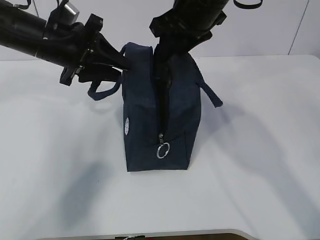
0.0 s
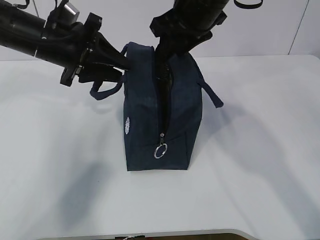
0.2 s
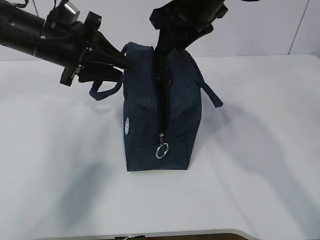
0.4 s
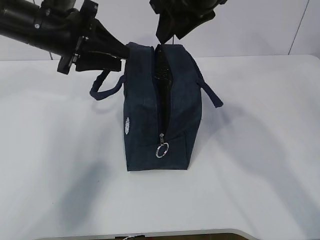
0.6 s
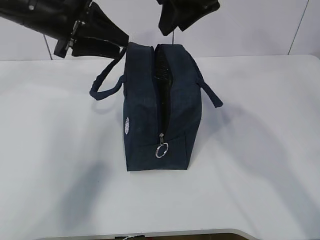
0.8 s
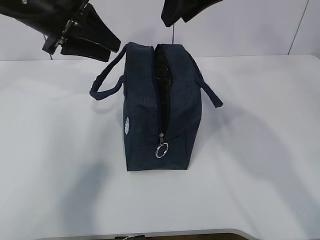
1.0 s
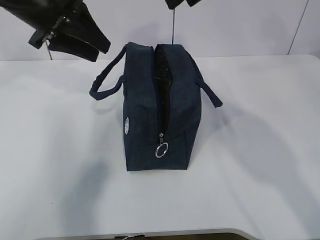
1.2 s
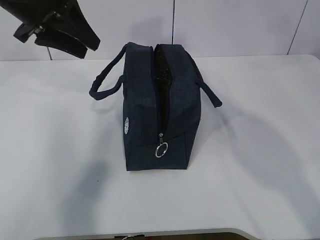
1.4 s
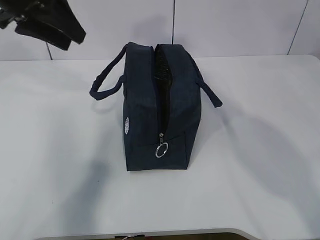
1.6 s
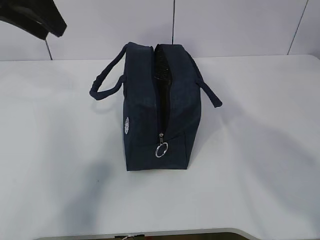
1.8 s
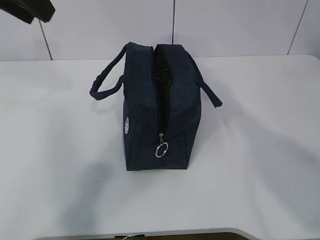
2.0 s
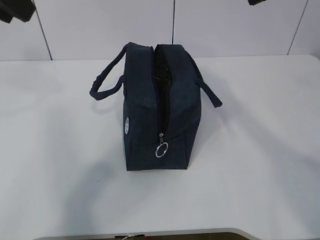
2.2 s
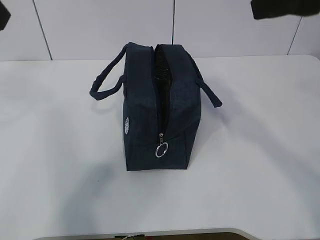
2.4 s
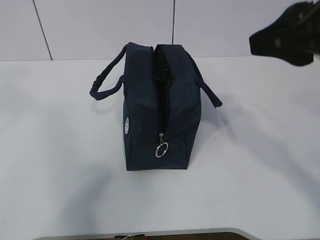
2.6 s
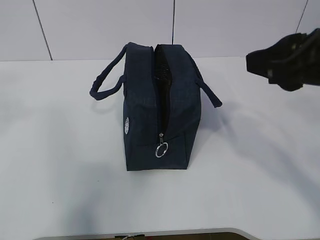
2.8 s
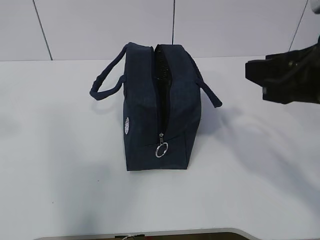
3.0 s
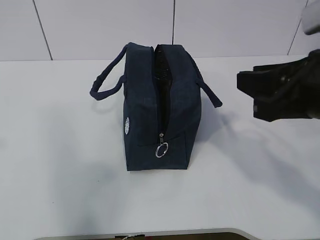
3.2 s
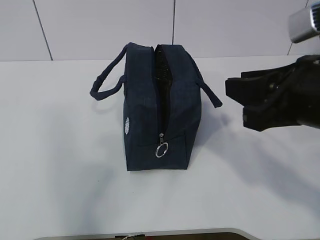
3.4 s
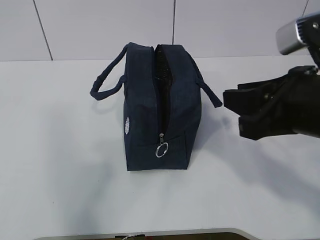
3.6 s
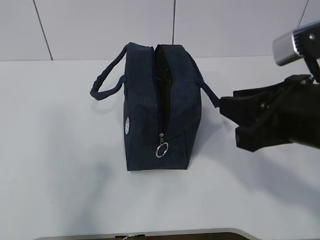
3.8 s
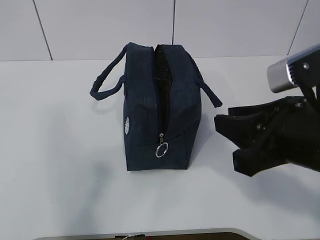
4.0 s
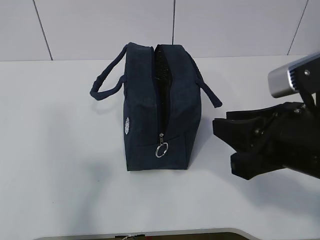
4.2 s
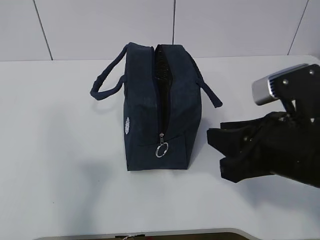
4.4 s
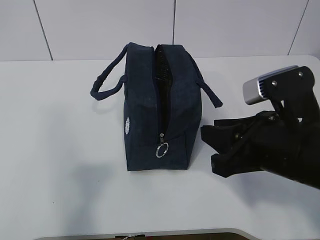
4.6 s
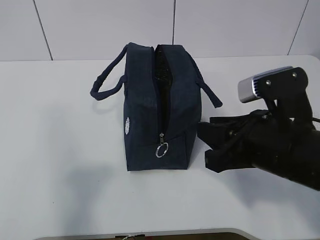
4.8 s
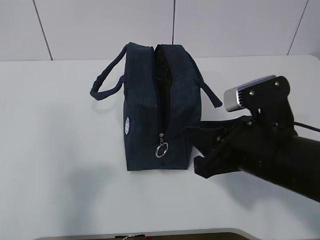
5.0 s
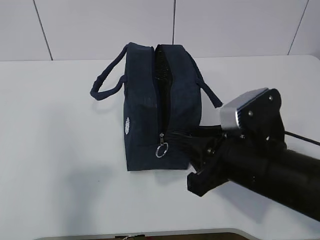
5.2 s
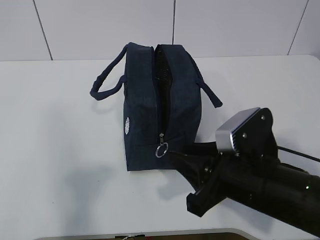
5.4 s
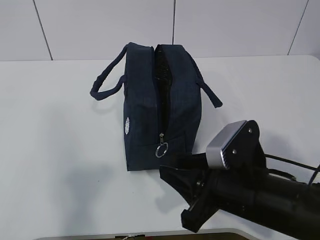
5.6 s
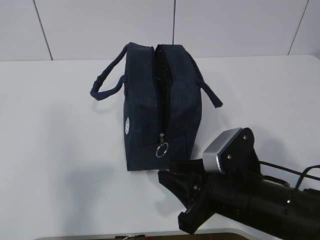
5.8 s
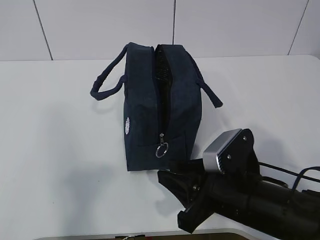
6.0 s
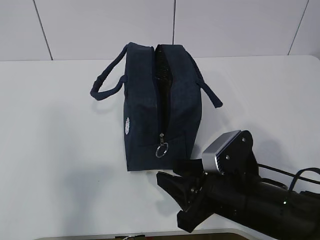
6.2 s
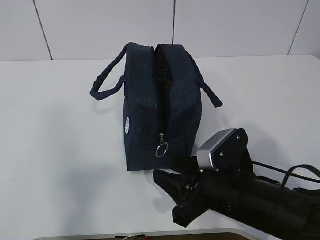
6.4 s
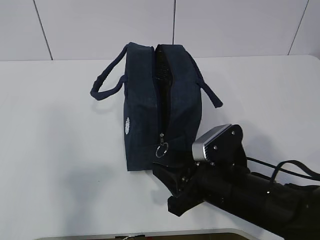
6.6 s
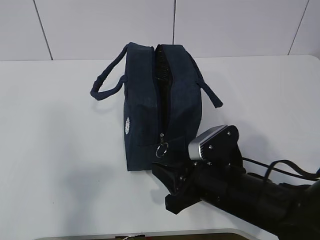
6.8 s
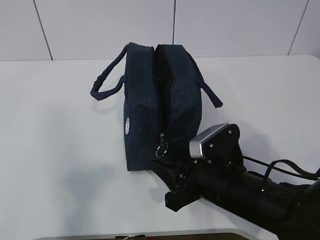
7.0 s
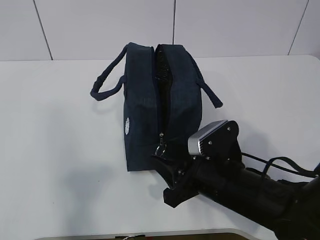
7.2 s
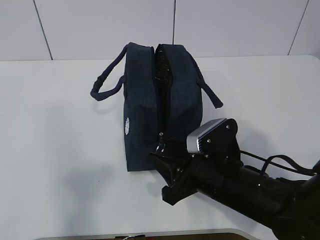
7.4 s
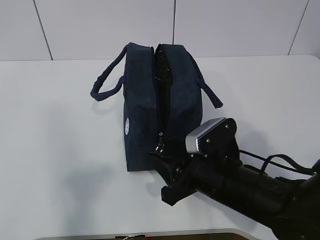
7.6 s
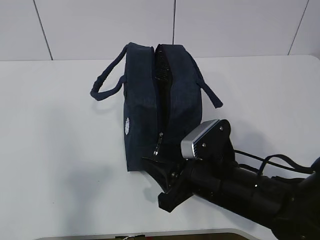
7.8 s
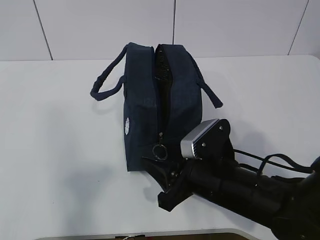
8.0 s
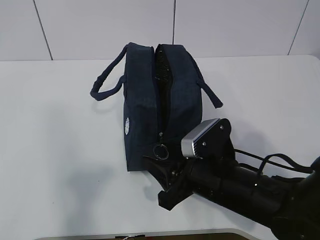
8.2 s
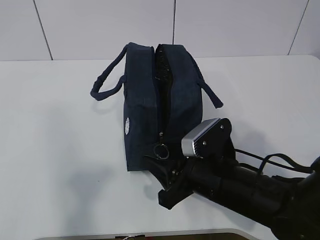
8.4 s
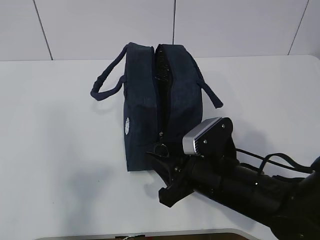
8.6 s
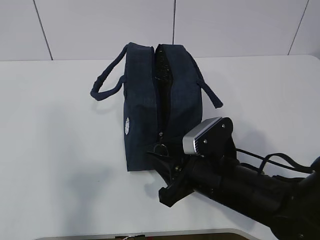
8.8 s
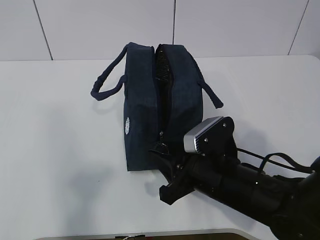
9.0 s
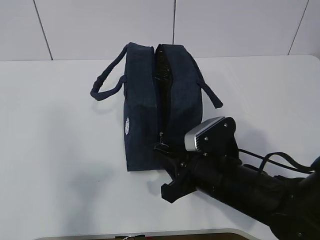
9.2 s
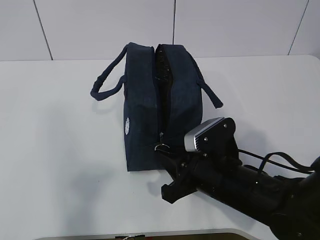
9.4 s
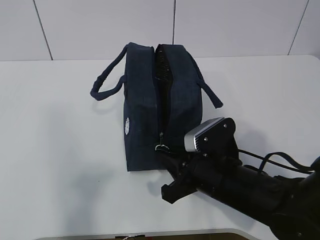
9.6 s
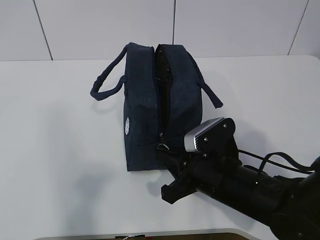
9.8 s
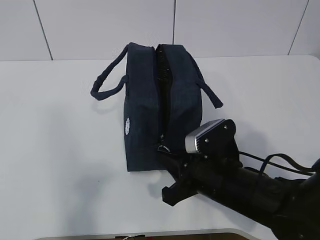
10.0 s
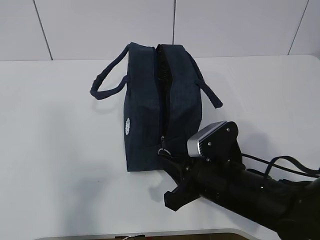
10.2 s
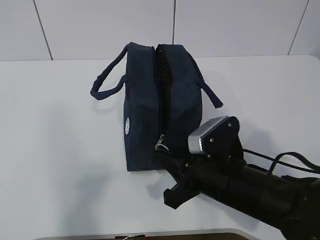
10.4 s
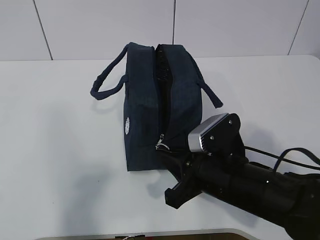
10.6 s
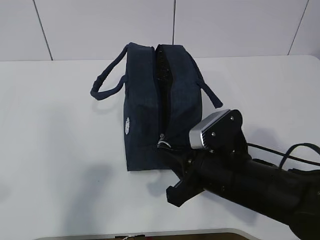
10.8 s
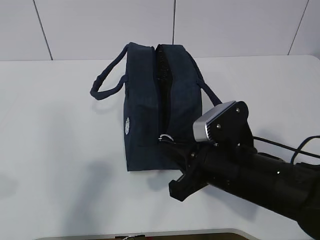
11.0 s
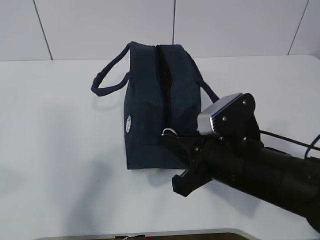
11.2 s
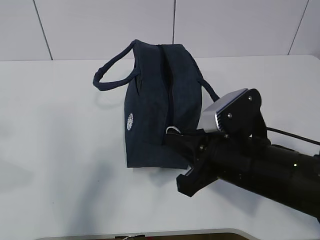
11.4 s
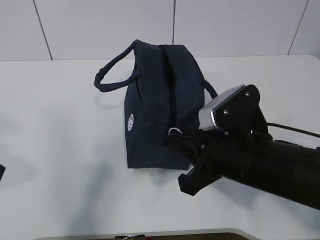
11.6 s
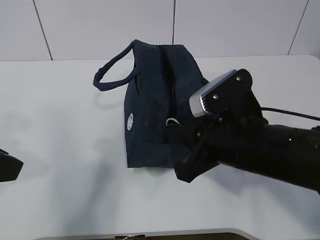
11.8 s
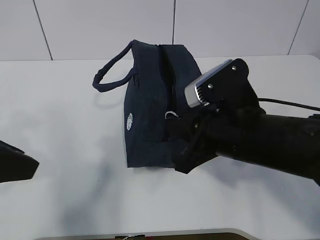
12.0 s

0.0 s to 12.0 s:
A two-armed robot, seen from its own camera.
Step, 0.0 to 7.8 s: Grab the lunch bag with your left hand.
0.0 to 1.6 s: The right gripper goes some 15 cm upward and backward; the left gripper goes roughly 10 cm upward.
1.6 to 3.0 s: The left gripper travels backward by some 20 cm, while the right gripper moves downward, backward and to the right, roughly 20 cm.
3.0 to 4.4 s: The left gripper goes some 10 cm backward. Meanwhile the right gripper heads downward, covering approximately 5 cm.
4.4 to 6.0 s: The right gripper heads downward, covering roughly 10 cm.
6.0 to 7.6 s: The grippers stay close to where they were, moving slightly.
7.6 to 9.0 s: Both grippers stay put.
9.0 to 10.4 s: The right gripper closes its fingers.
10.4 to 12.0 s: The right gripper moves upward, some 10 cm. Meanwhile the left gripper is displaced forward and downward by some 15 cm.

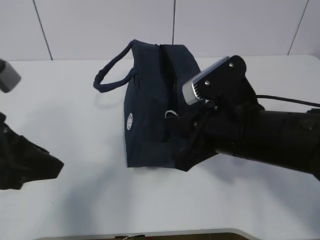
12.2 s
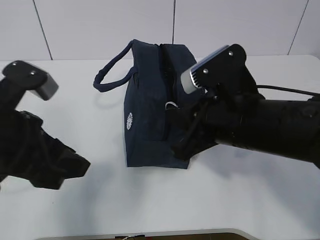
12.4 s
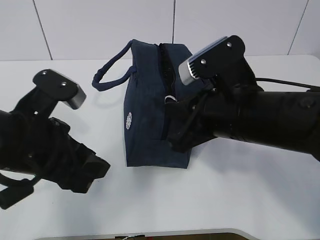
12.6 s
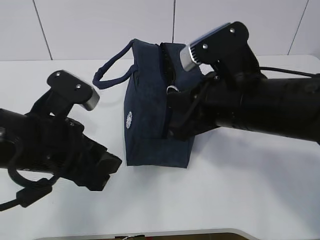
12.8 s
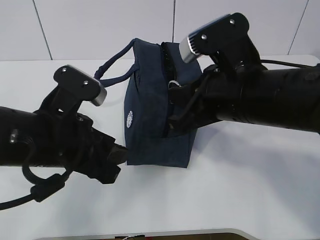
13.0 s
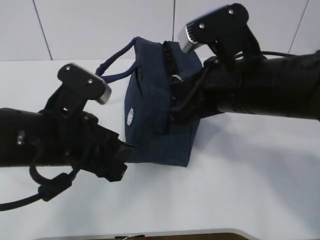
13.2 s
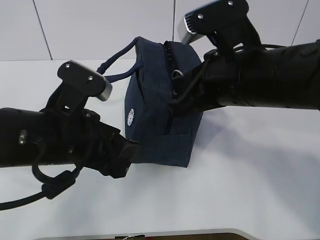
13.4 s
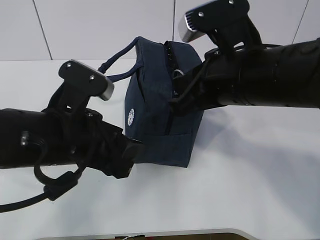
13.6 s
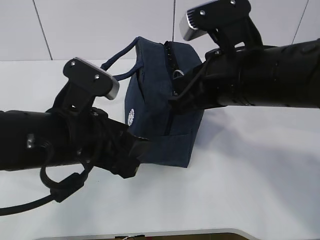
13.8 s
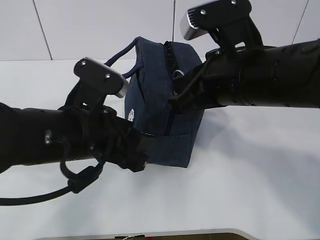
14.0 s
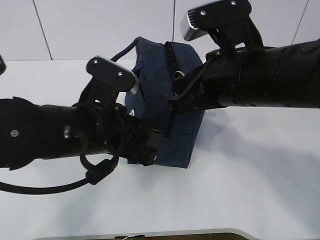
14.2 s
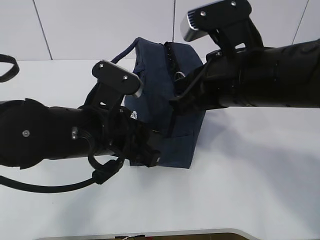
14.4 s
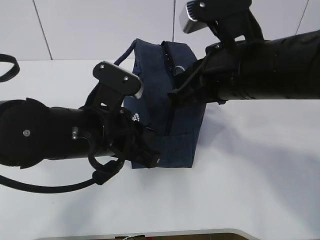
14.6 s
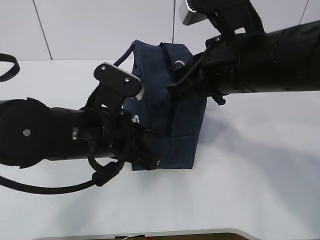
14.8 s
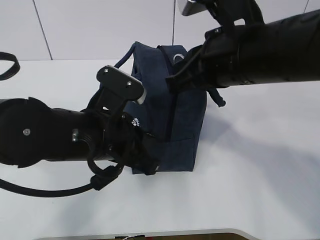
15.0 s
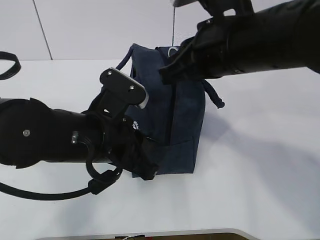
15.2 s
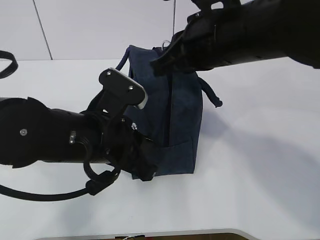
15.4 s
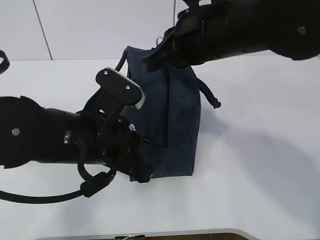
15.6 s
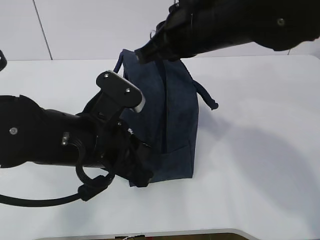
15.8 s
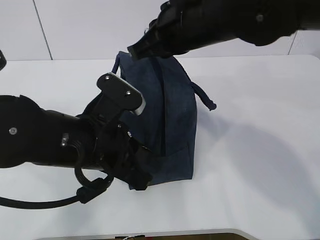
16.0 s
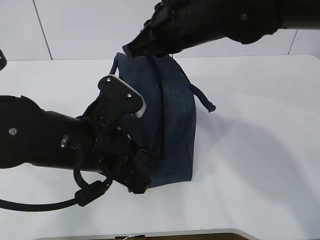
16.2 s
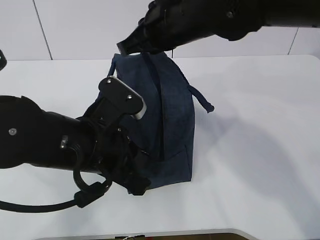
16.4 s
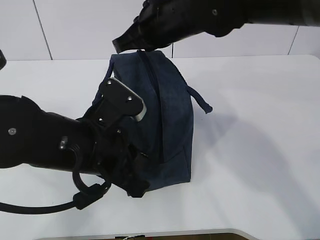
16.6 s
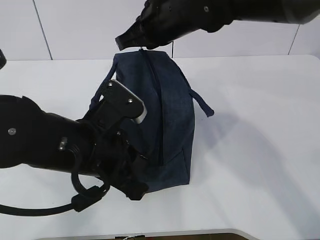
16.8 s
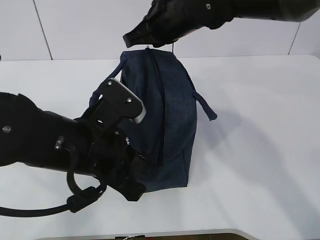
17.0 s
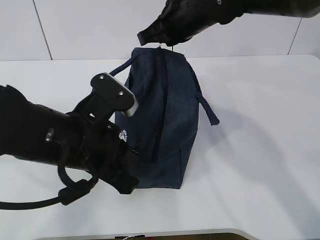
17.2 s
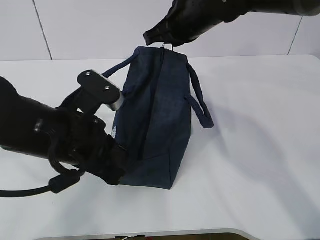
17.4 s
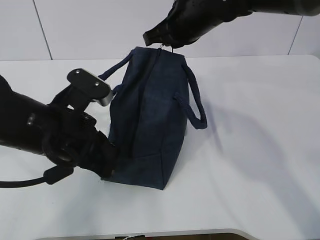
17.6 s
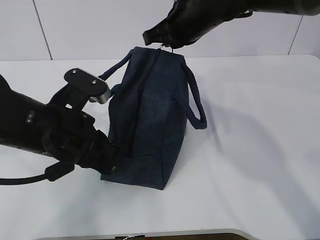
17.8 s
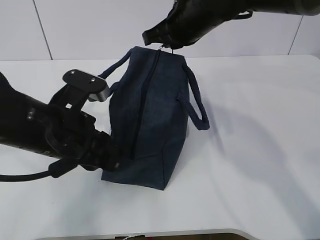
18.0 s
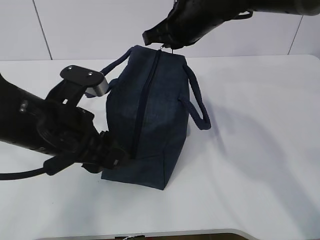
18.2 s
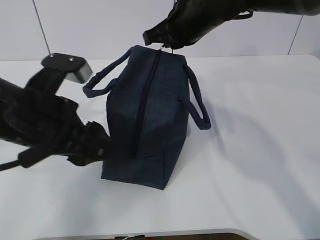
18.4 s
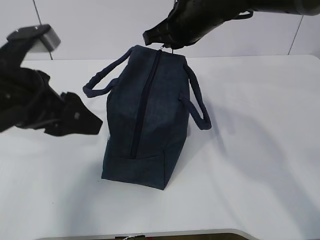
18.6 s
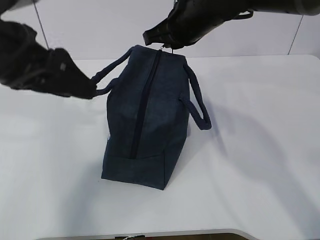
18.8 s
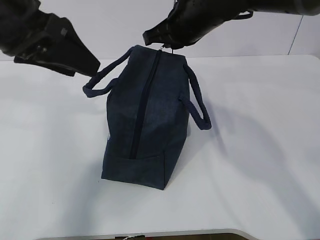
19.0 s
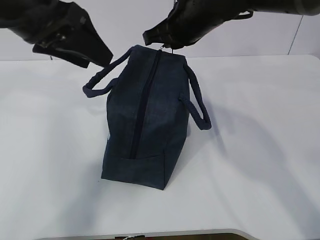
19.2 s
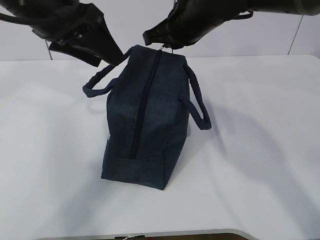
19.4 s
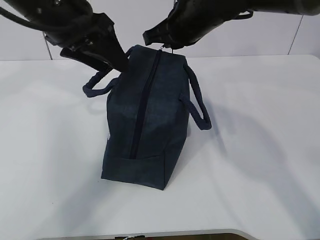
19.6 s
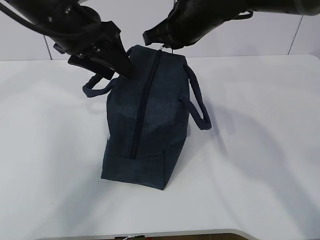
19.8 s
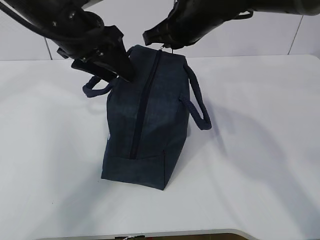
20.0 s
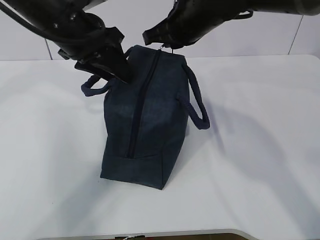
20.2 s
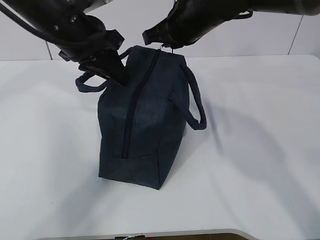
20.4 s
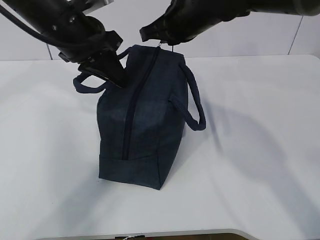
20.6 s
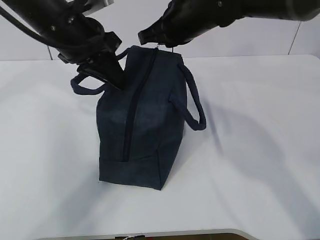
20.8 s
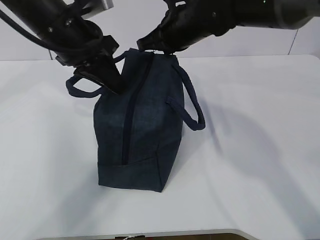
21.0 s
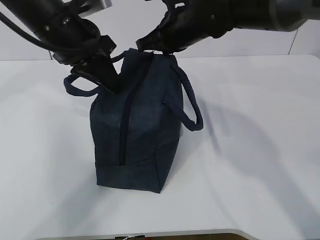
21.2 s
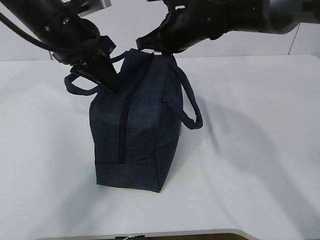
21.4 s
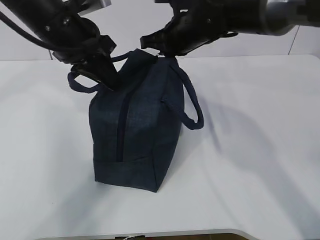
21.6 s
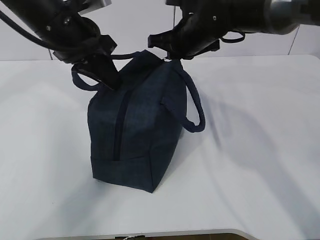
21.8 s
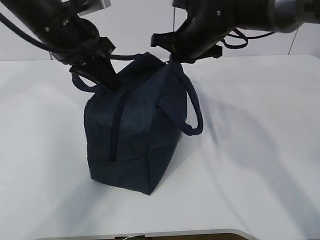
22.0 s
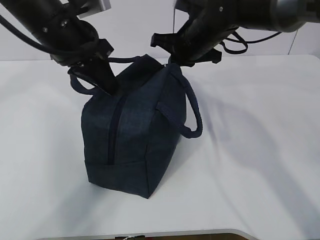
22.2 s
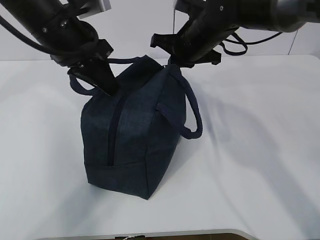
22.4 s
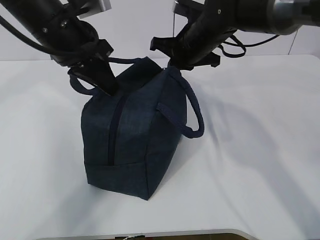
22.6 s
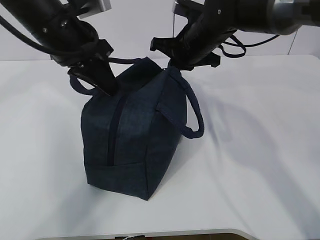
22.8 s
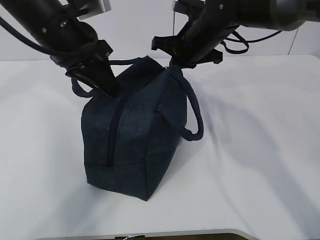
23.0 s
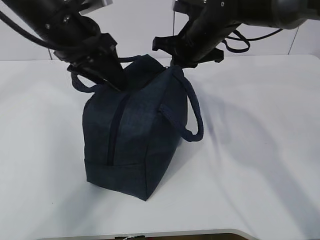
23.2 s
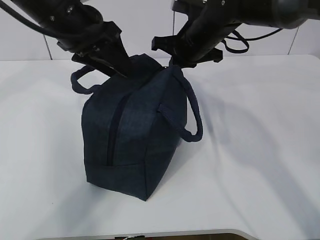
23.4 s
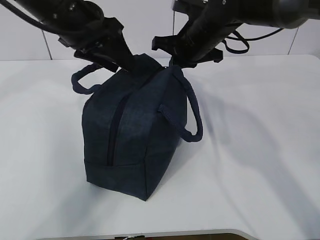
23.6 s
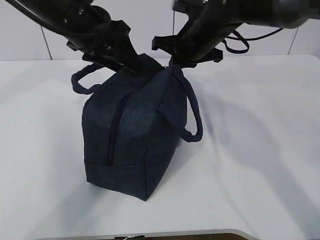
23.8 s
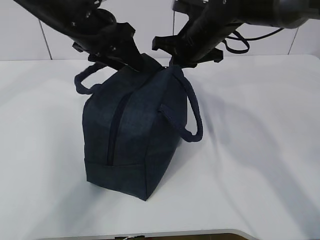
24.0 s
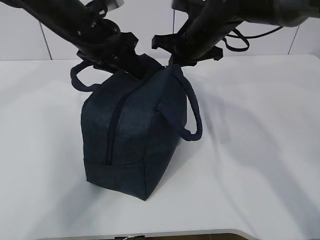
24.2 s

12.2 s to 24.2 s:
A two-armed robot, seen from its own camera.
Step, 12.2 to 14.4 s: Pull the zipper with your right hand.
12.2 to 13.8 s: The right gripper goes approximately 5 cm upward; the left gripper goes approximately 10 cm to the right.
13.8 to 15.2 s: The left gripper closes its fingers.
15.2 to 16.6 s: The right gripper goes some 10 cm forward and to the left.
16.6 to 18.2 s: The right gripper changes place by about 5 cm. Meanwhile the left gripper opens up.
18.2 to 19.8 s: The left gripper moves forward and upward, about 15 cm.
19.8 to 21.2 s: The left gripper closes.
21.2 to 22.6 s: The right gripper shifts by some 5 cm.
22.6 to 24.2 s: The left gripper ends up some 5 cm from where it was, and opens its fingers.
